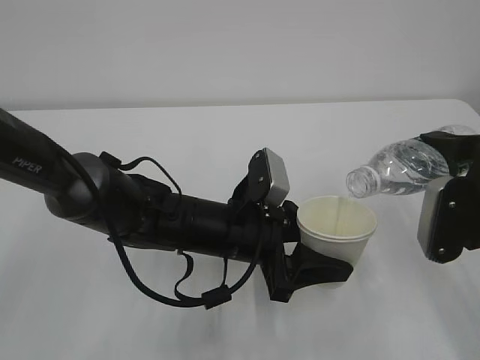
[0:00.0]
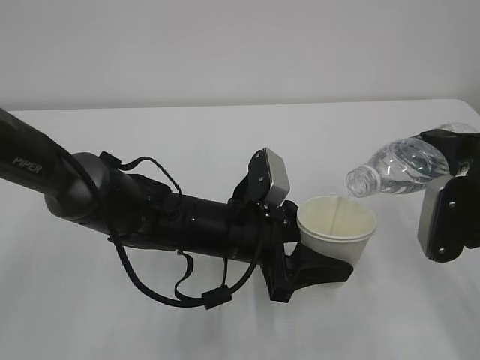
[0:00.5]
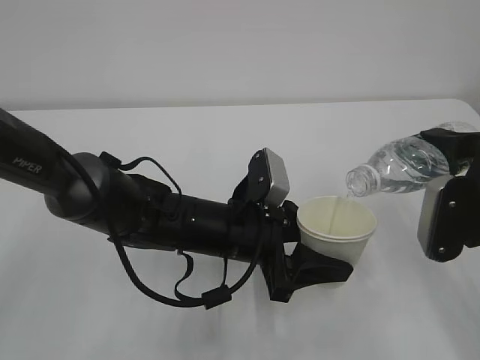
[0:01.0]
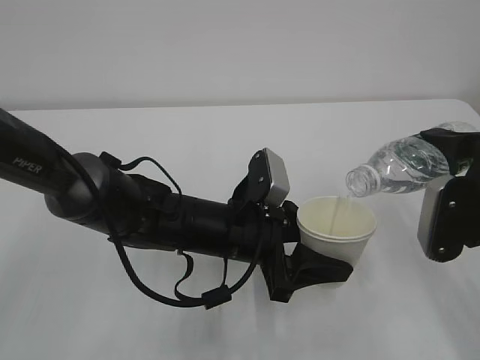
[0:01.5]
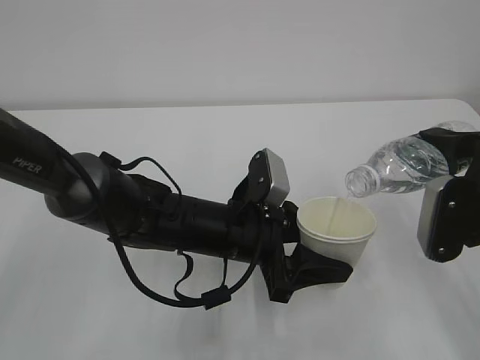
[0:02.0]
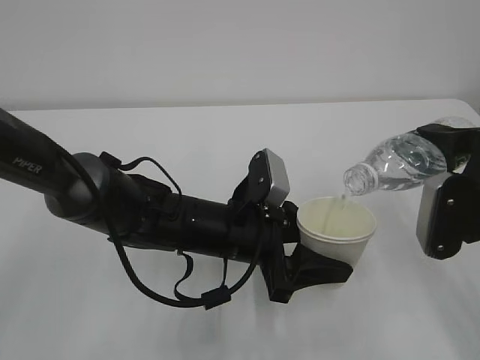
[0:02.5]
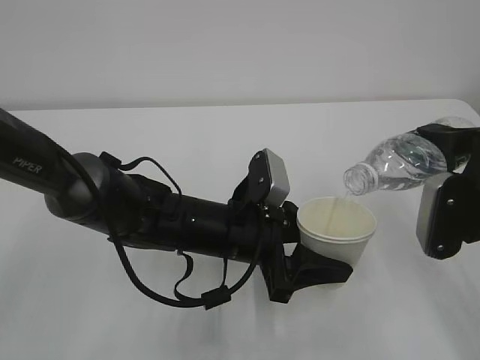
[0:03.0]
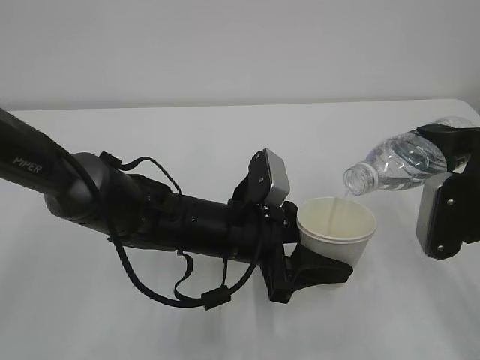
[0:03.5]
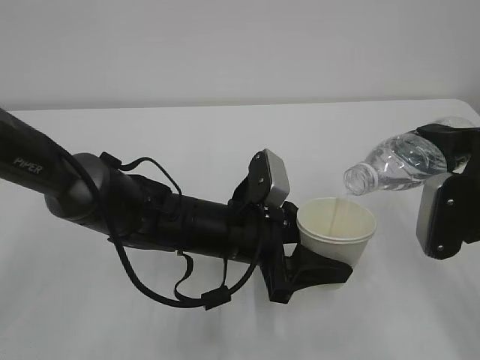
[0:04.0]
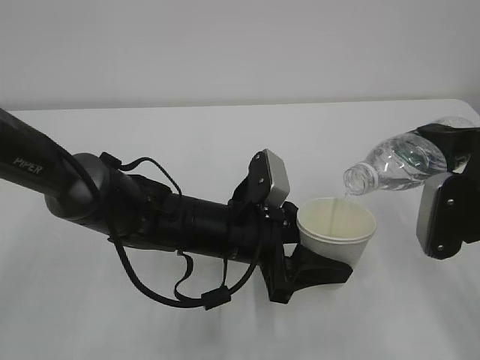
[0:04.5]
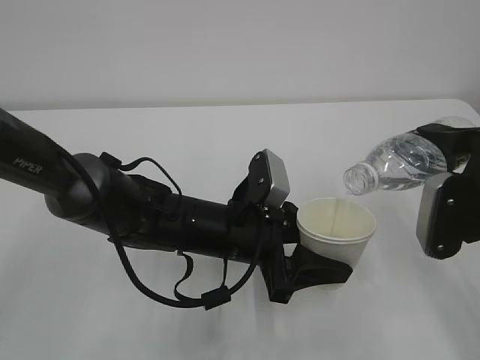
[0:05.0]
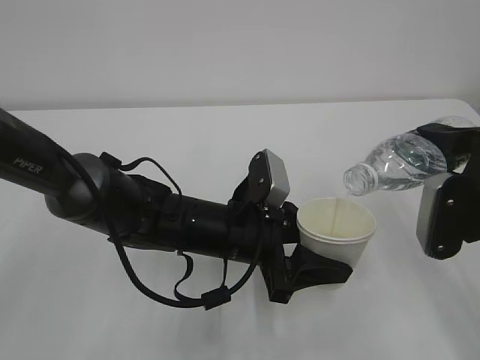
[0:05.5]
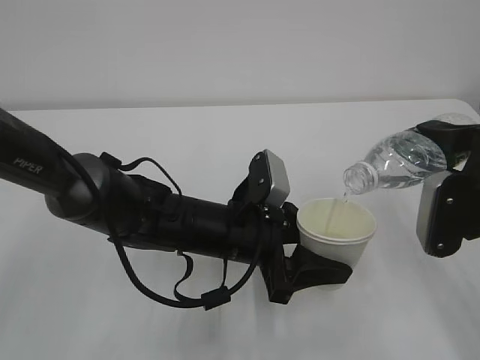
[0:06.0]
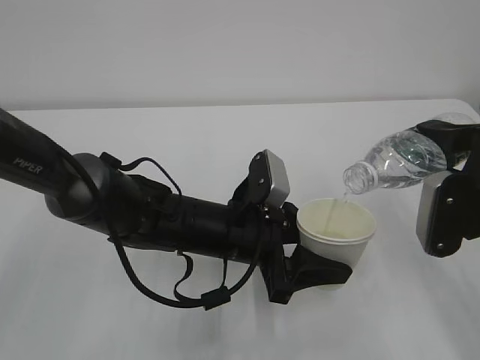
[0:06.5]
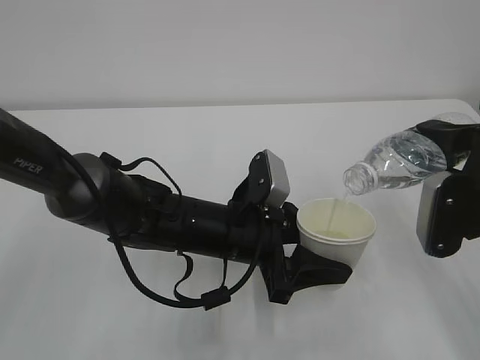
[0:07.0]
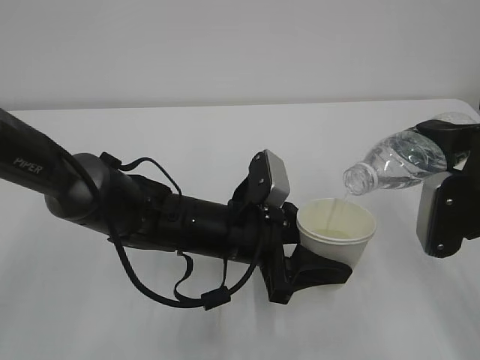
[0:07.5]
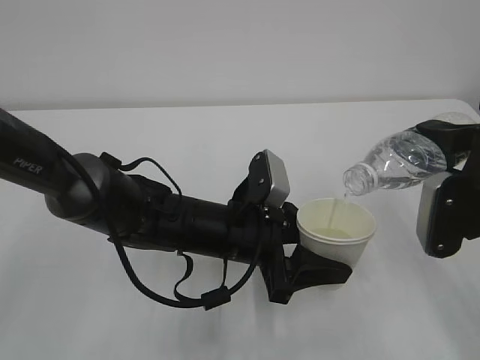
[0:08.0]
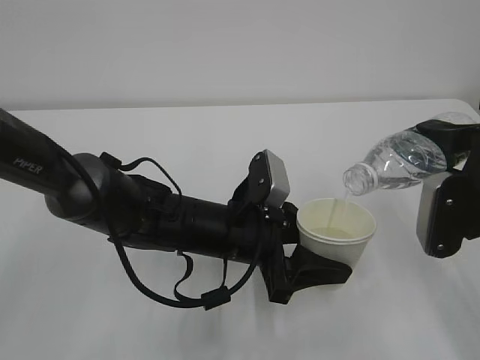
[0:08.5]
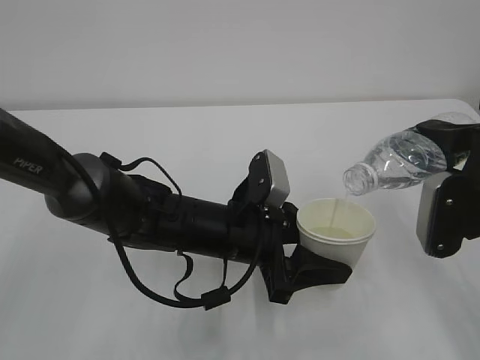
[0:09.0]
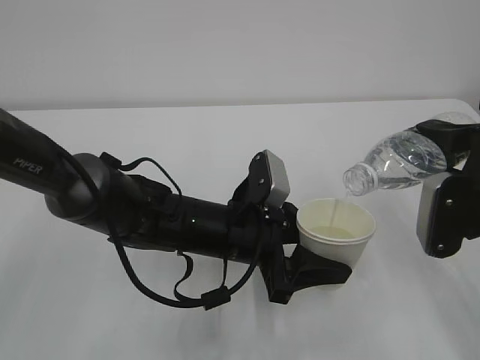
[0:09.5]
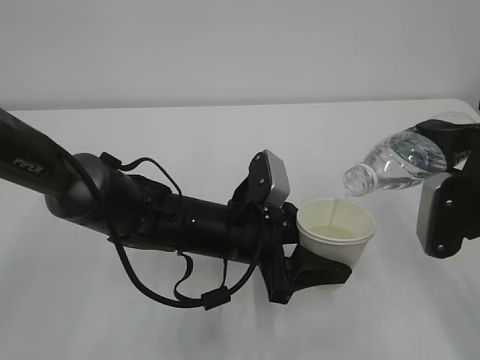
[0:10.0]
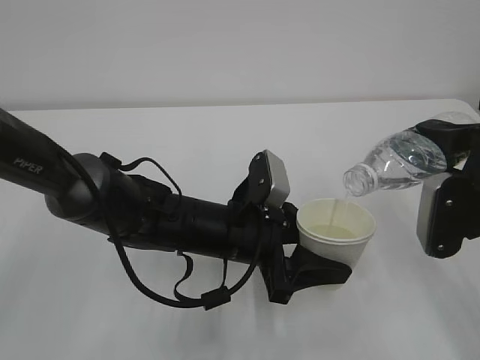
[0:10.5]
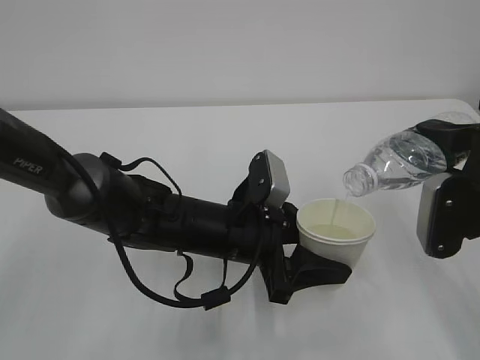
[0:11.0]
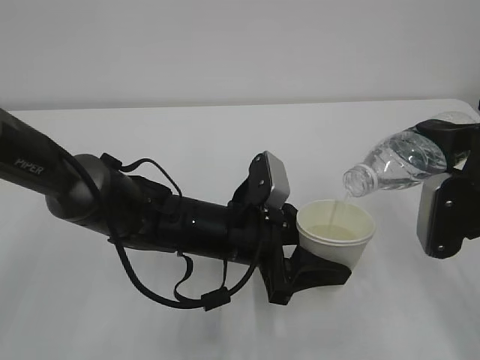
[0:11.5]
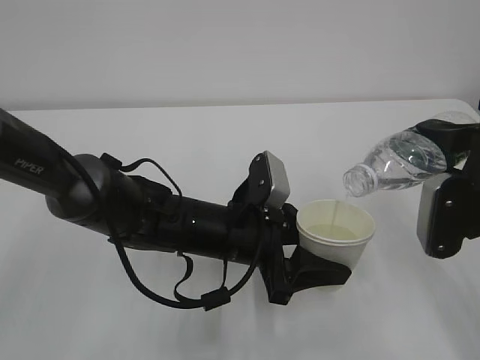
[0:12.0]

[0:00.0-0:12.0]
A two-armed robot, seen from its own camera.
0:00.0 to 0:08.0: Both grippers stay about where they are.
0:08.0 to 0:12.0: The two grippers keep their place.

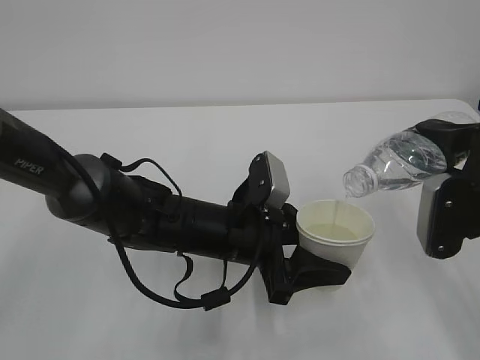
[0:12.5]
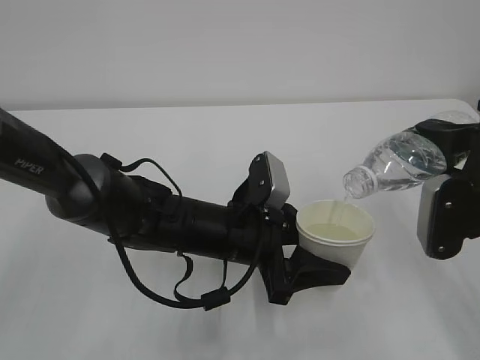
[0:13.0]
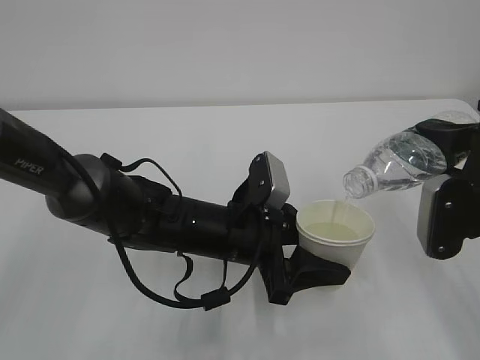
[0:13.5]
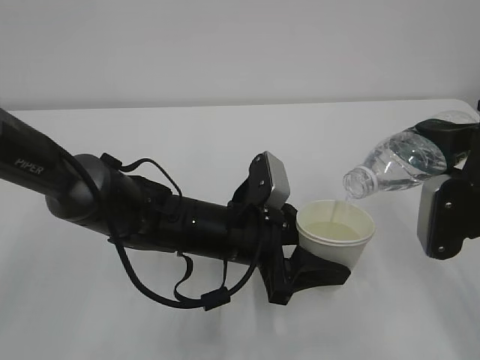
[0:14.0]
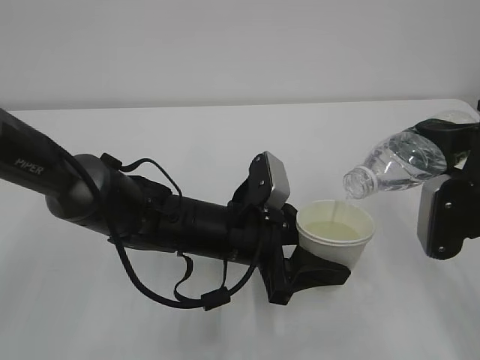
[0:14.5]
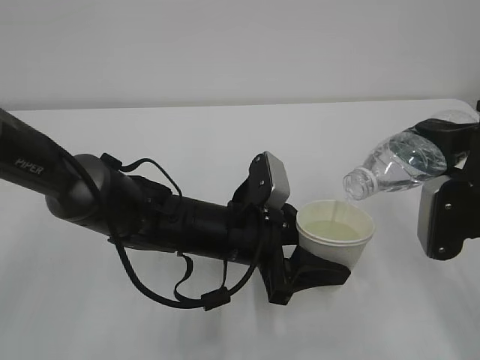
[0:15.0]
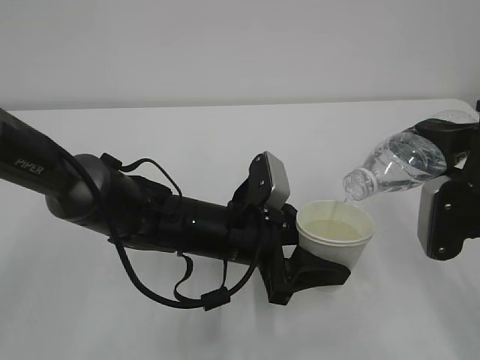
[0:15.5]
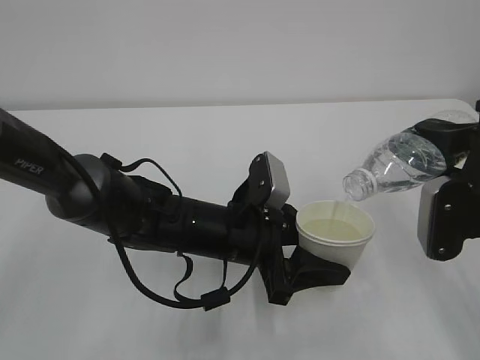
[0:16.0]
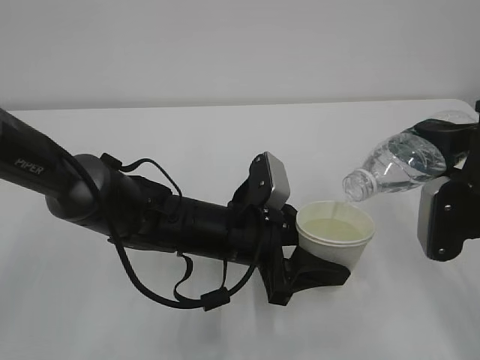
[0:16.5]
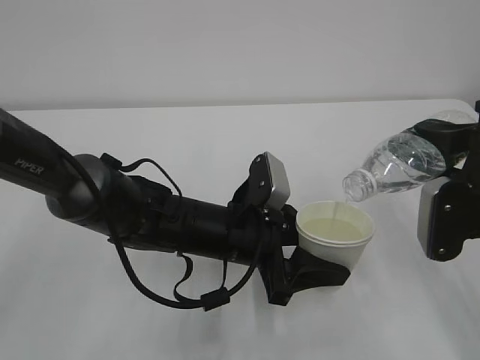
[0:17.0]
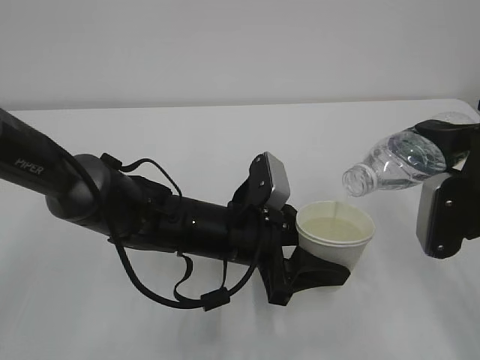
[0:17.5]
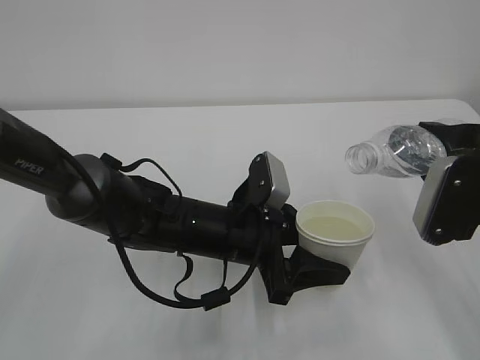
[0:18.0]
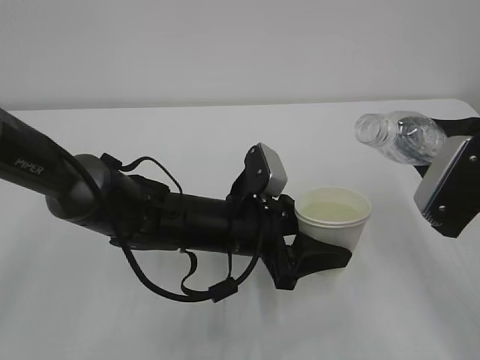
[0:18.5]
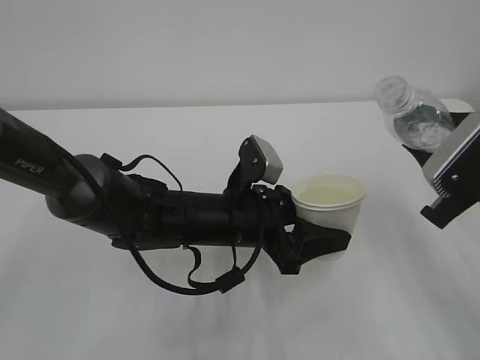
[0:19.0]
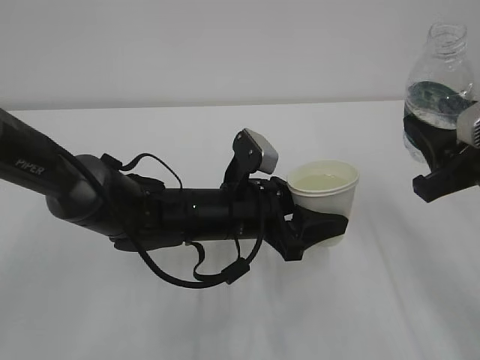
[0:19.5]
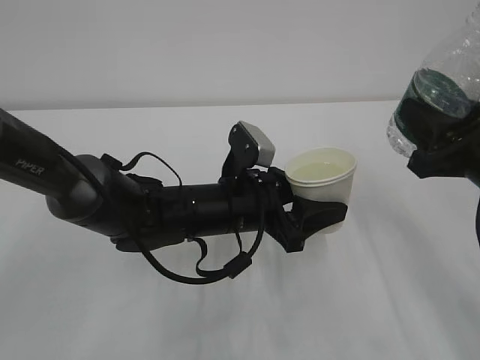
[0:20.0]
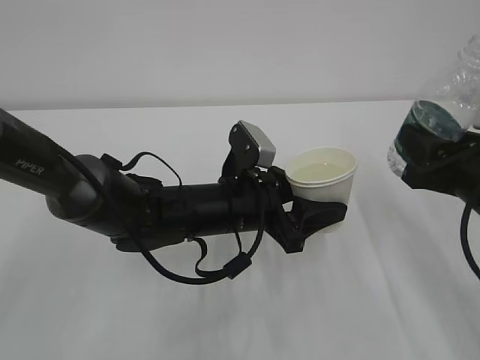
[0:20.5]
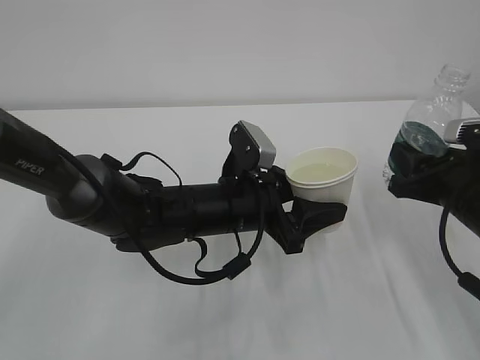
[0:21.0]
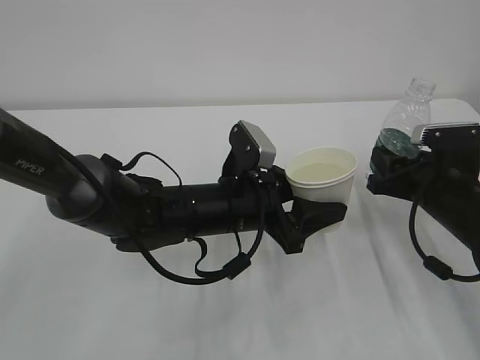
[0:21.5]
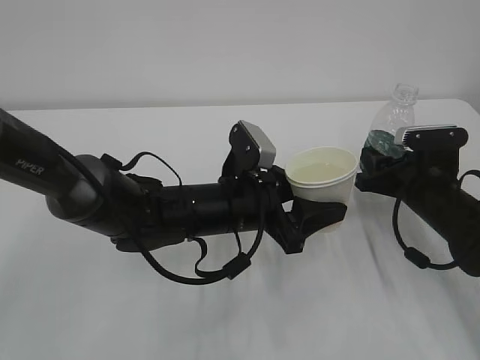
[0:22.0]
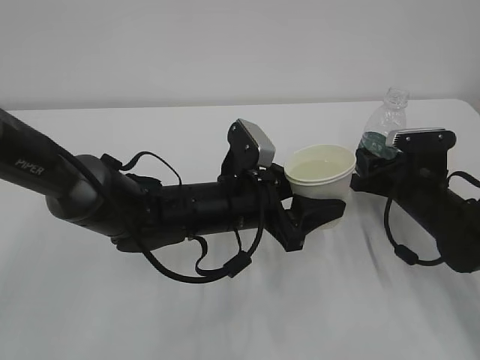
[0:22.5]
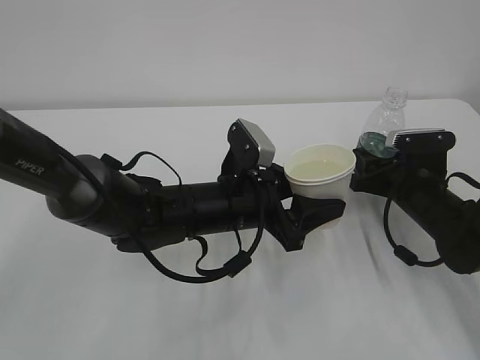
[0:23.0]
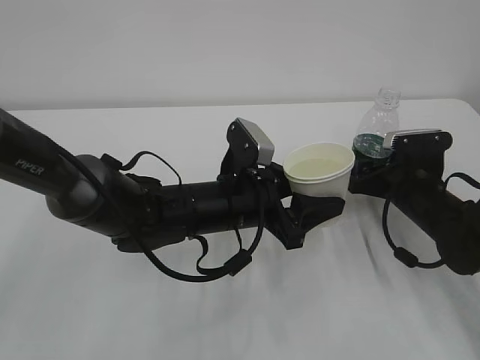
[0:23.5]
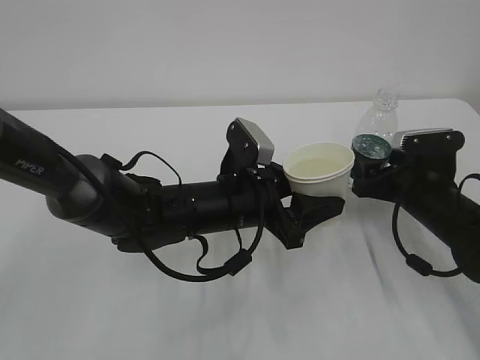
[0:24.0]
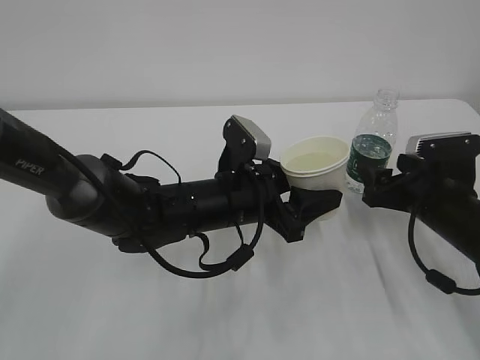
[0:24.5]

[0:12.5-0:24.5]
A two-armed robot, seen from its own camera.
0:12.5 to 0:16.5: The two grippers keep their place.
0:20.5 to 0:22.5: The right gripper travels forward and downward by roughly 15 cm.
0:22.5 to 0:24.5: The right gripper moves roughly 5 cm, and opens its fingers.

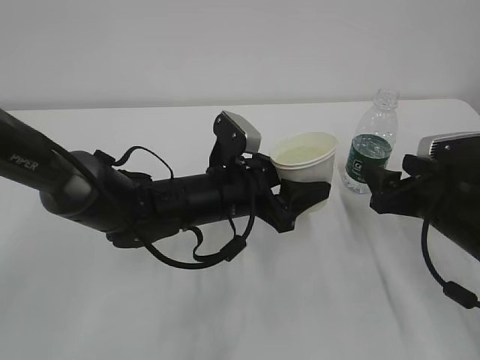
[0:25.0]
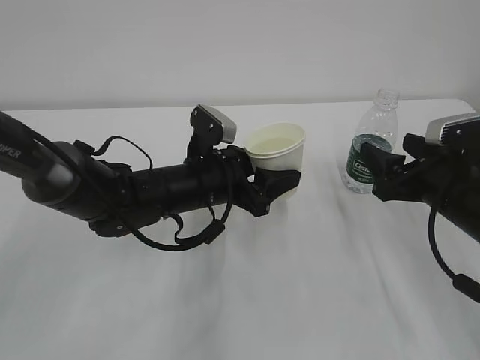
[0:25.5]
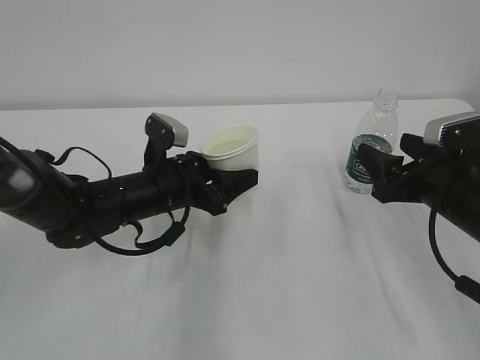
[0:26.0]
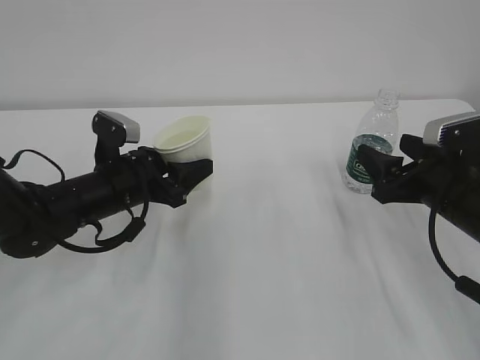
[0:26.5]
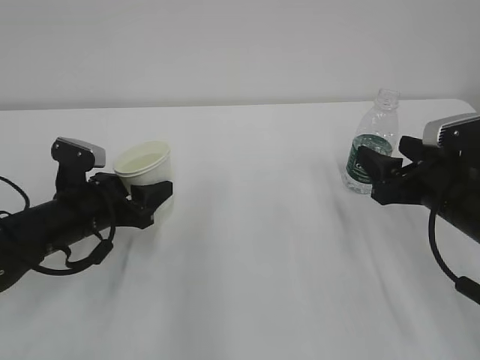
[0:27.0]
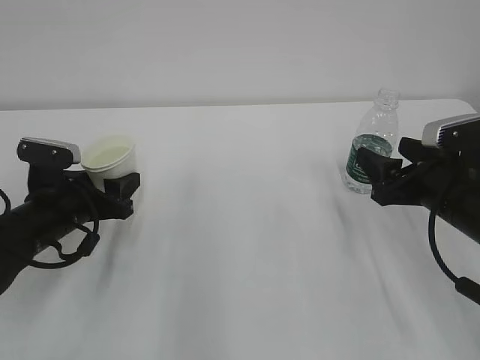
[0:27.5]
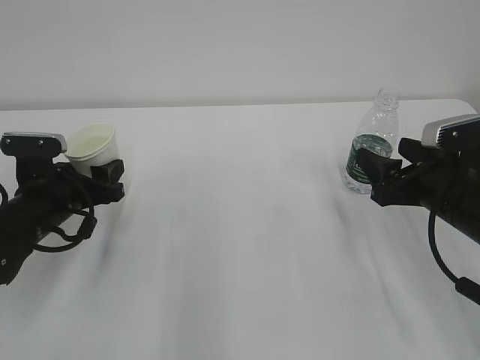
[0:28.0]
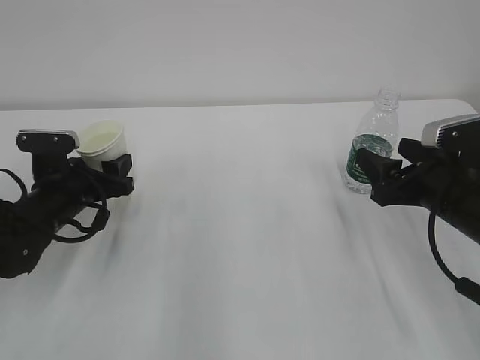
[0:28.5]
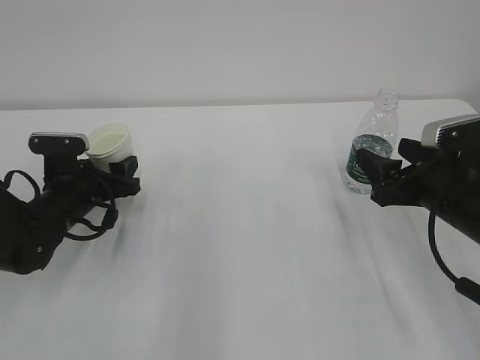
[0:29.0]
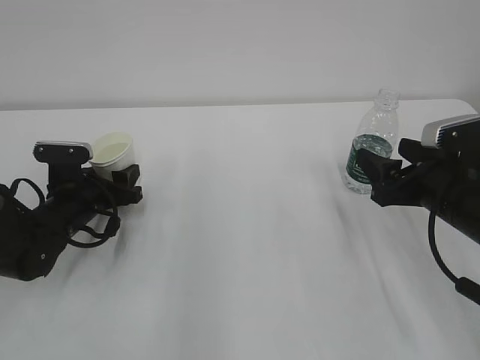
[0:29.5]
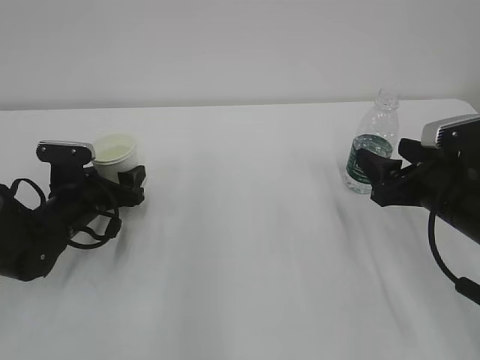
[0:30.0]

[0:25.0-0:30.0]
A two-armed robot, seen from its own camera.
0:25.0 to 0:27.5: The left gripper goes about 20 cm to the left.
0:27.5 to 0:30.0: The left gripper ends up some 5 cm from where it was, and opens up.
